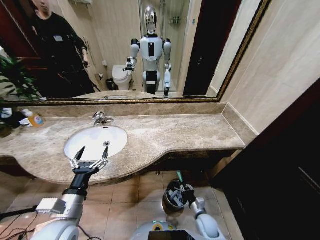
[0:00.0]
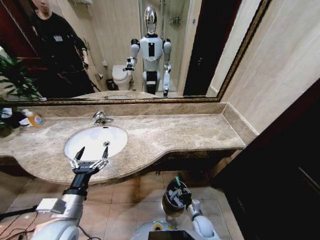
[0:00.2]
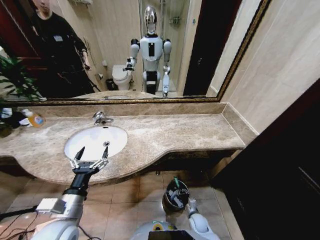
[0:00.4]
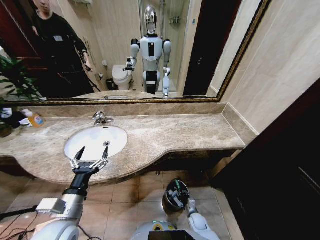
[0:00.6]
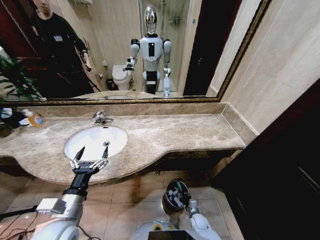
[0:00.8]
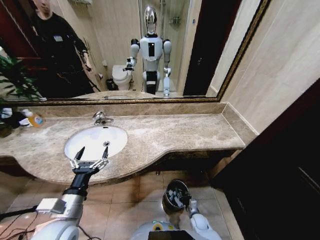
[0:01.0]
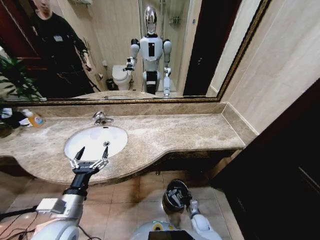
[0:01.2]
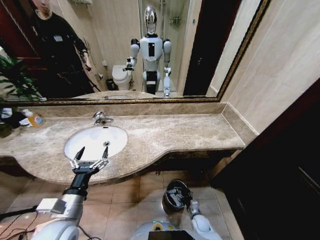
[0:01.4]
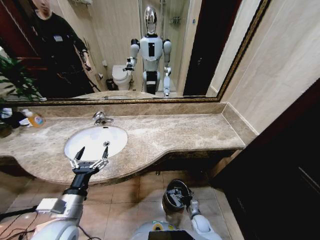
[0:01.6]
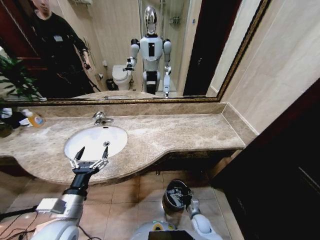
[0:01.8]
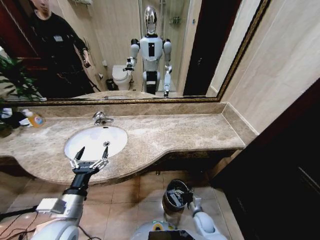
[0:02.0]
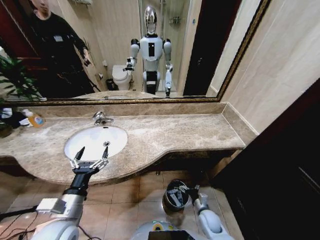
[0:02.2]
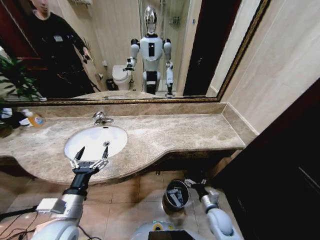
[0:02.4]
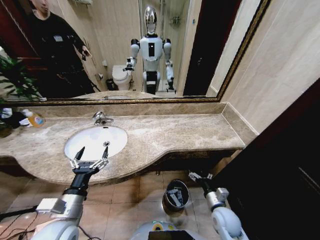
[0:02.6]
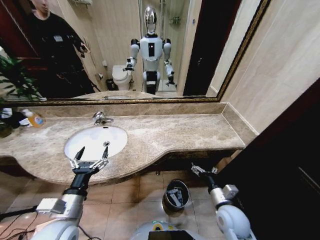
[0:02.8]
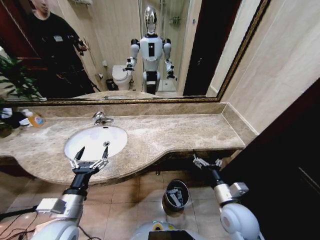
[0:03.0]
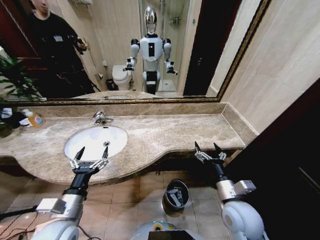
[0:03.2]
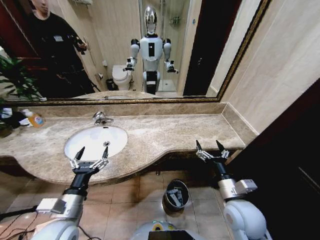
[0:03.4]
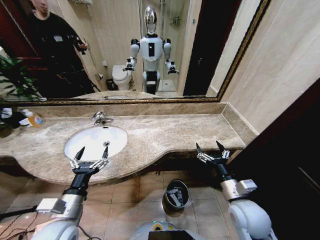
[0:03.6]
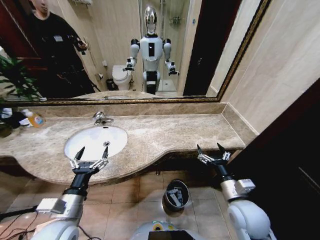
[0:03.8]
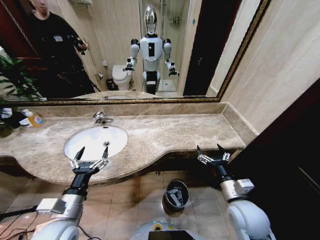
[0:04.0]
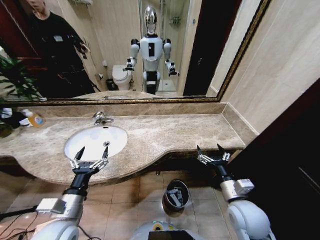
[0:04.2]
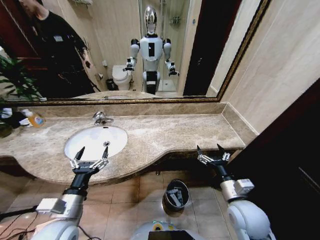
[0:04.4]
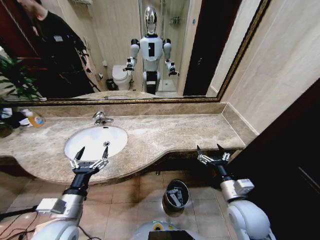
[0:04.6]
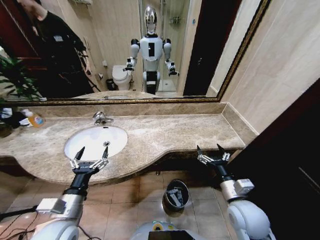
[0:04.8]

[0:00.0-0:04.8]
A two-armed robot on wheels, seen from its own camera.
Task of the whole recording: Pick up the trash from the sink and place it in the trash bin.
0:00.0 to 0:01.6: The right gripper moves downward, roughly 10 cm, and opens up.
0:01.6 to 0:03.2: The right gripper moves upward, about 35 cm.
0:03.2 to 0:04.8: The grippers make only small movements.
